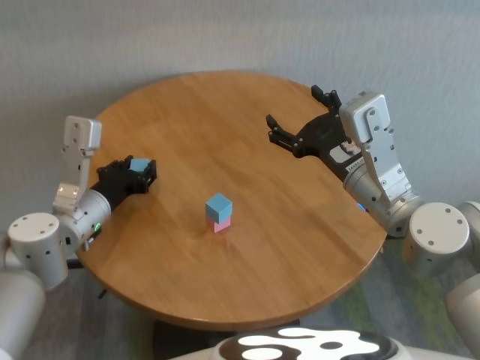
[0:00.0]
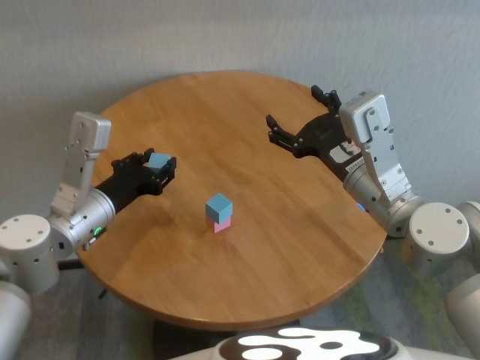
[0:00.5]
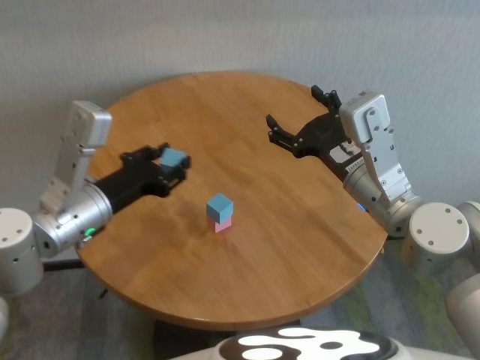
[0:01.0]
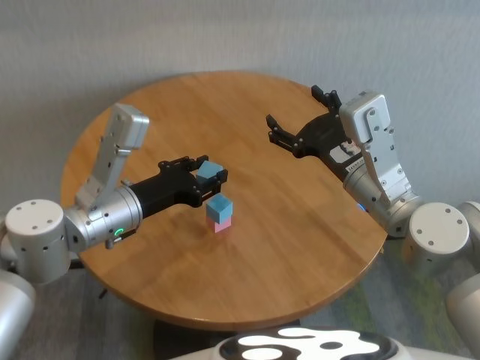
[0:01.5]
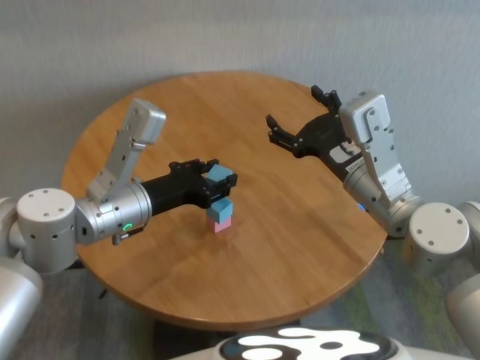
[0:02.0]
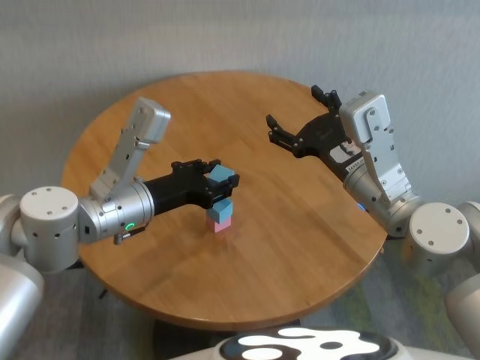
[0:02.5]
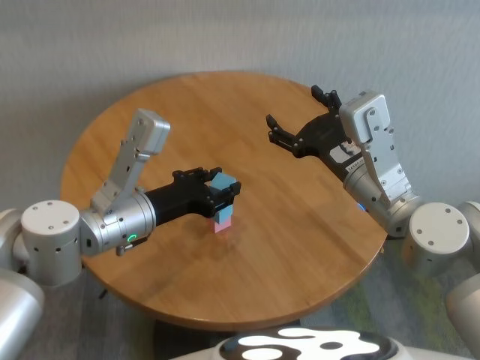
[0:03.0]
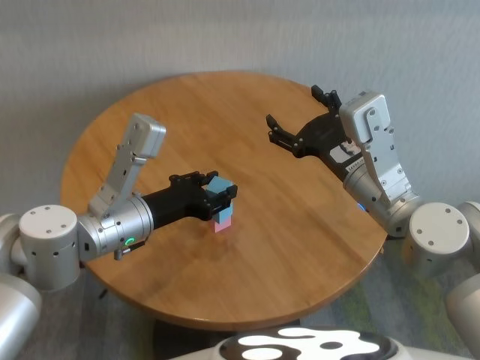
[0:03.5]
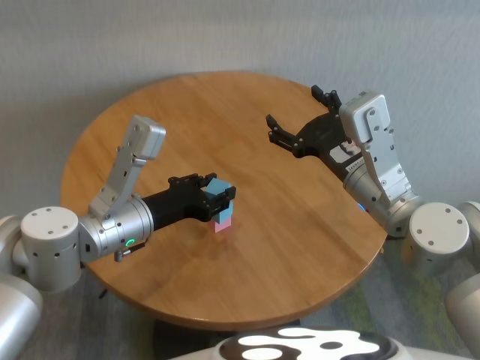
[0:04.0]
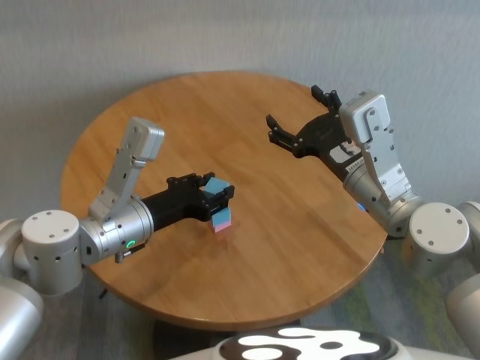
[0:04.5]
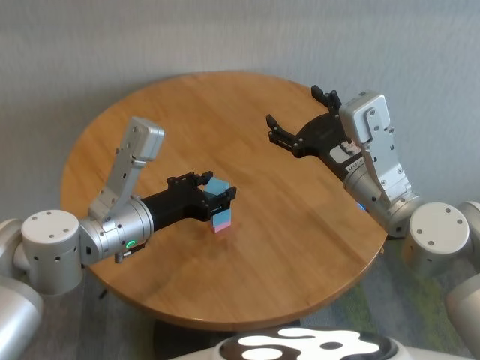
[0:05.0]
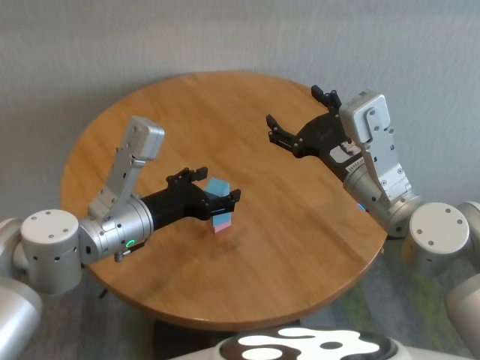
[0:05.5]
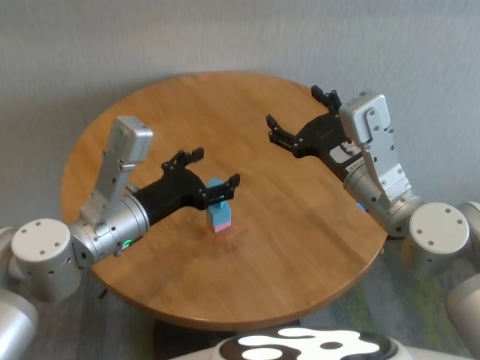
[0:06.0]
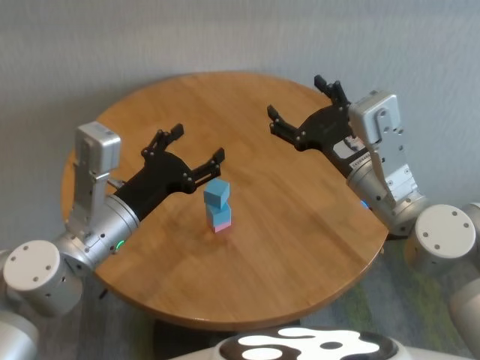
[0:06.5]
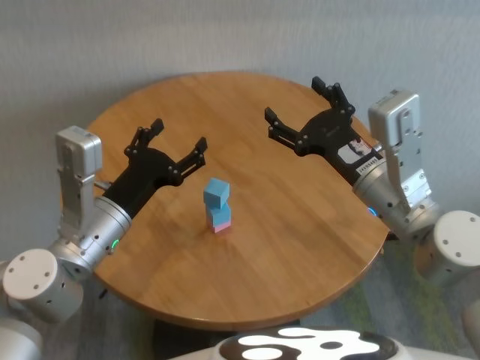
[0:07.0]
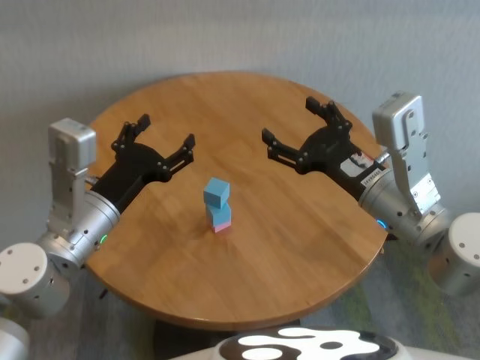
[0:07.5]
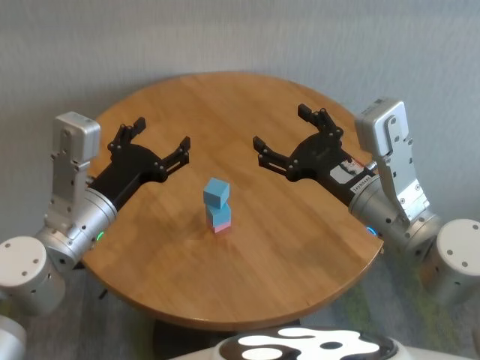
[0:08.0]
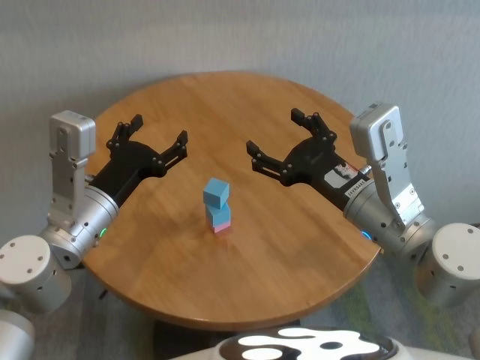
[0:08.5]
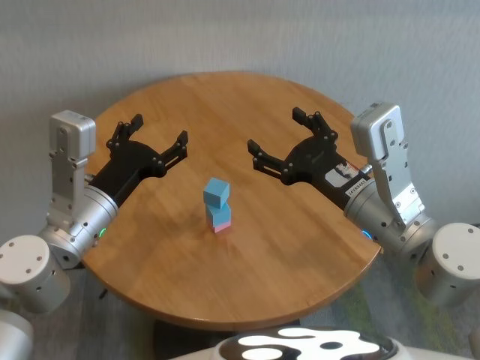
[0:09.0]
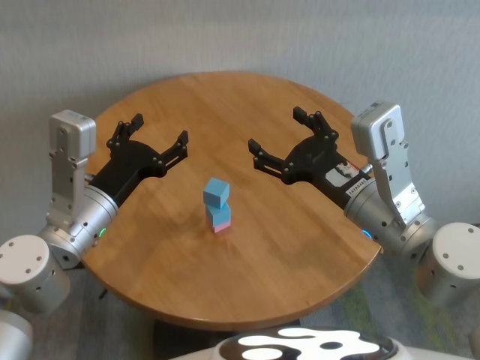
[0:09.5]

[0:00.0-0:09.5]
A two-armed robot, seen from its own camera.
Task of the whole recording: stack building blocks on the table.
Step, 0:00.0 to 0:05.0: Place the blue building block on the blue building blocks with left gripper.
